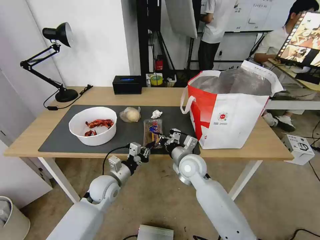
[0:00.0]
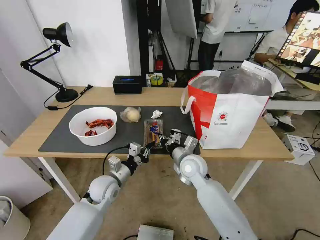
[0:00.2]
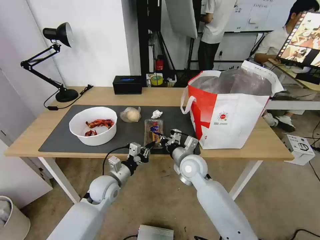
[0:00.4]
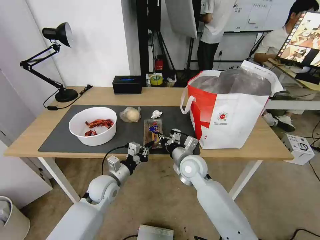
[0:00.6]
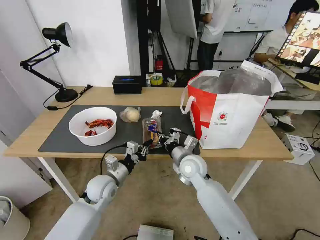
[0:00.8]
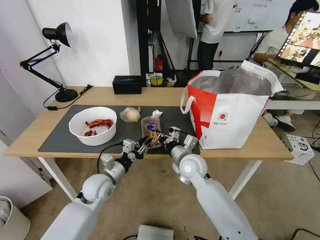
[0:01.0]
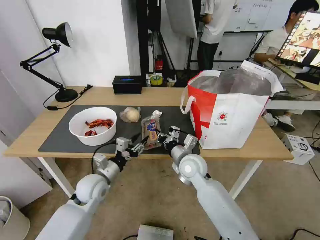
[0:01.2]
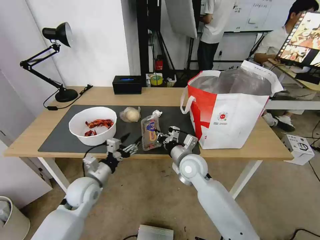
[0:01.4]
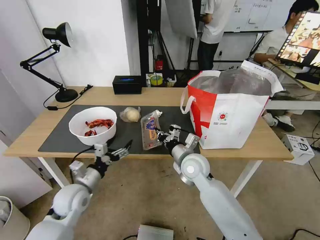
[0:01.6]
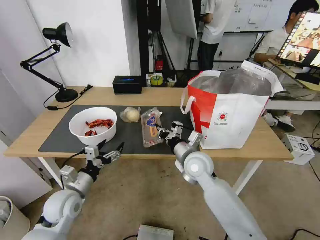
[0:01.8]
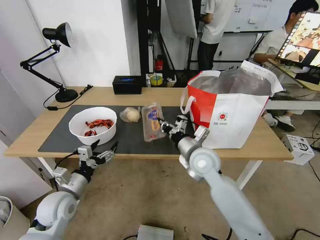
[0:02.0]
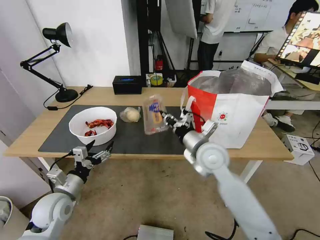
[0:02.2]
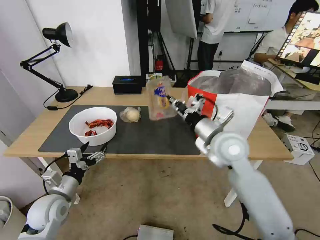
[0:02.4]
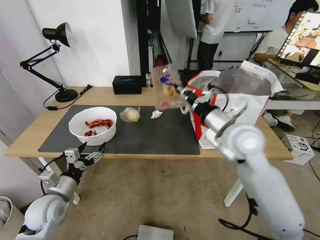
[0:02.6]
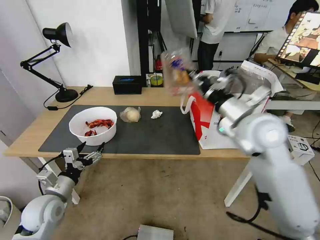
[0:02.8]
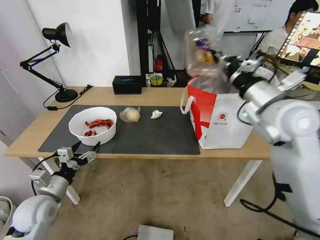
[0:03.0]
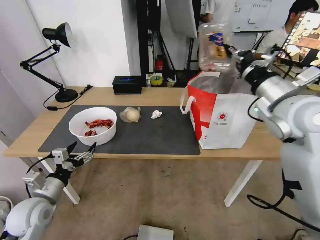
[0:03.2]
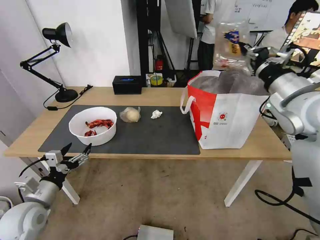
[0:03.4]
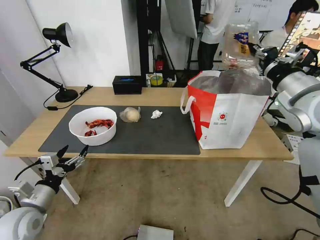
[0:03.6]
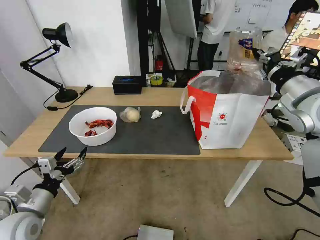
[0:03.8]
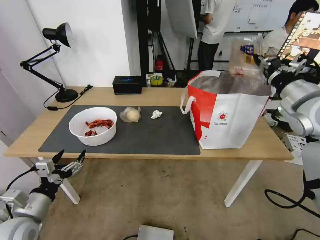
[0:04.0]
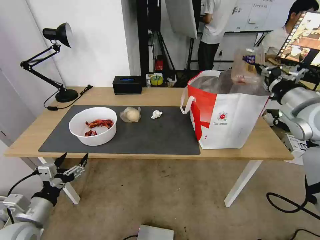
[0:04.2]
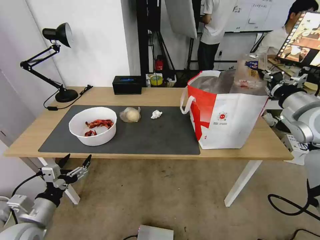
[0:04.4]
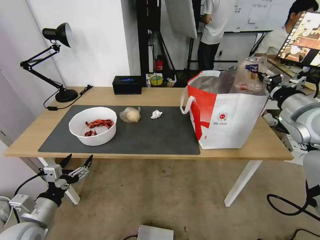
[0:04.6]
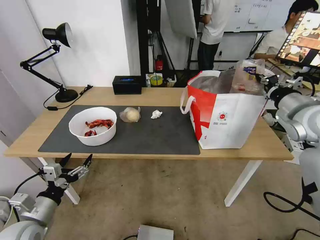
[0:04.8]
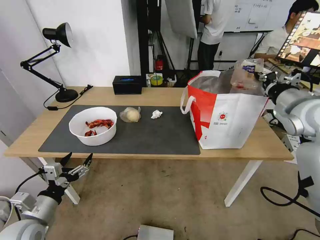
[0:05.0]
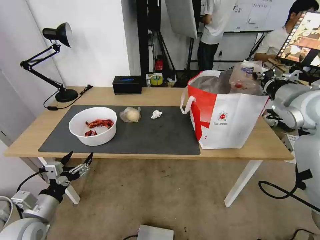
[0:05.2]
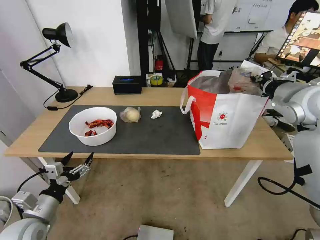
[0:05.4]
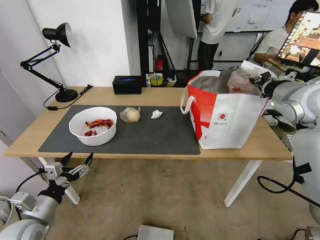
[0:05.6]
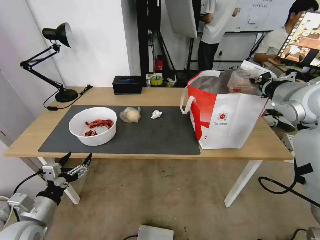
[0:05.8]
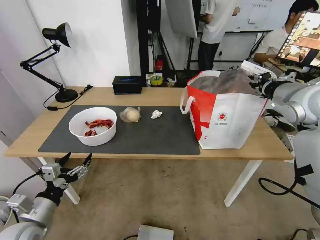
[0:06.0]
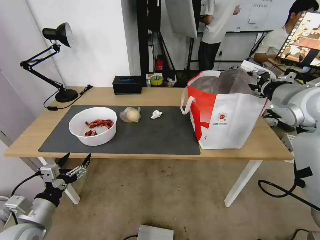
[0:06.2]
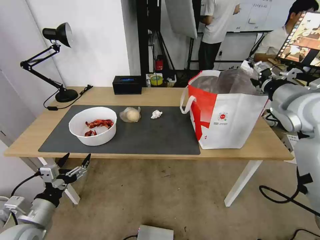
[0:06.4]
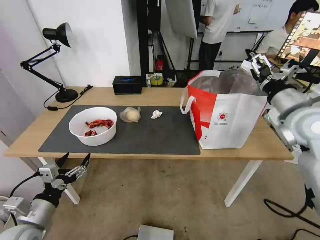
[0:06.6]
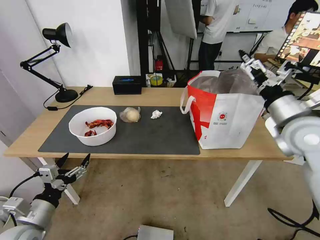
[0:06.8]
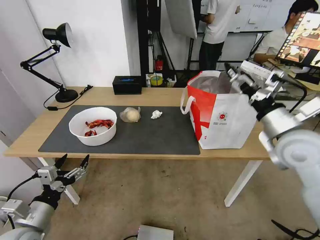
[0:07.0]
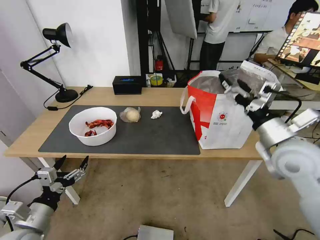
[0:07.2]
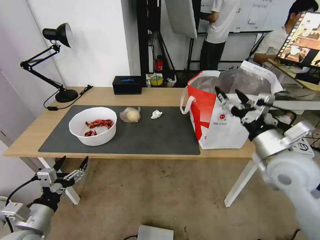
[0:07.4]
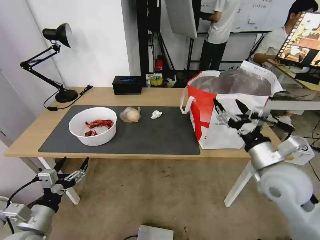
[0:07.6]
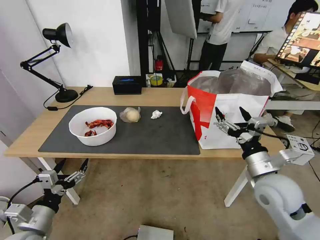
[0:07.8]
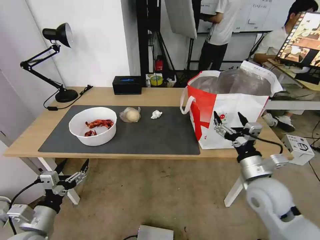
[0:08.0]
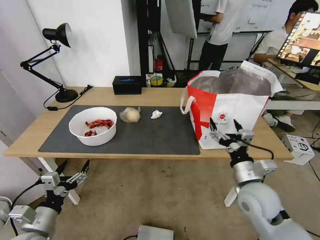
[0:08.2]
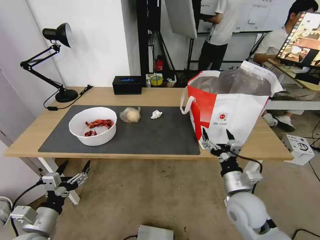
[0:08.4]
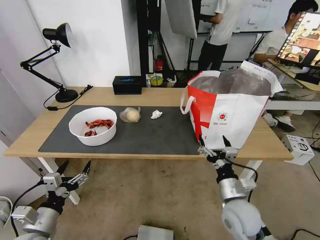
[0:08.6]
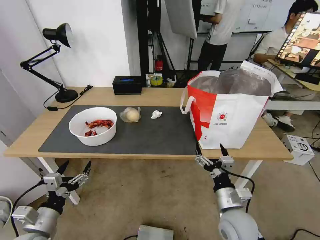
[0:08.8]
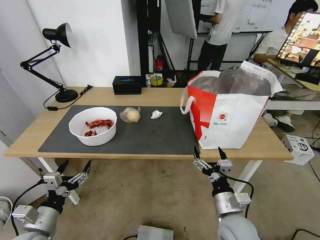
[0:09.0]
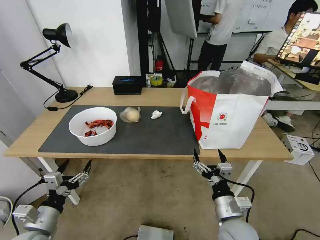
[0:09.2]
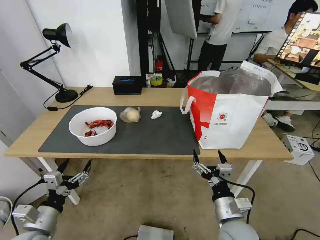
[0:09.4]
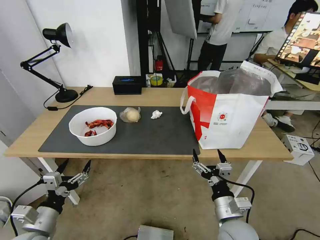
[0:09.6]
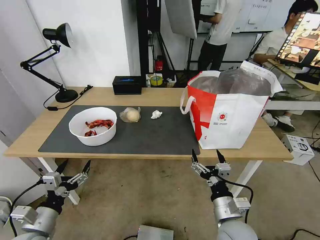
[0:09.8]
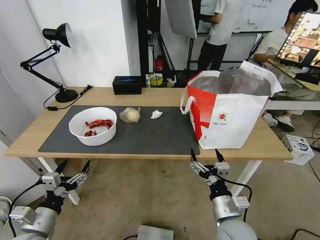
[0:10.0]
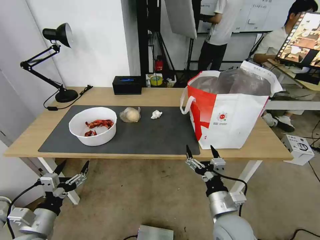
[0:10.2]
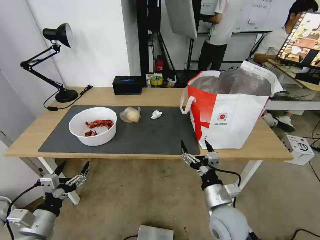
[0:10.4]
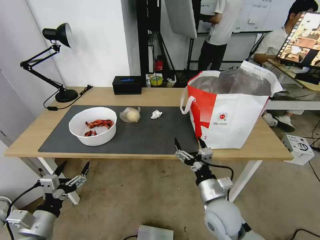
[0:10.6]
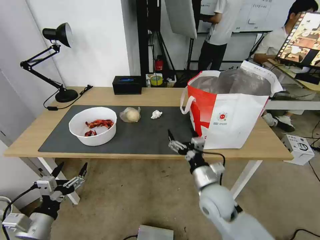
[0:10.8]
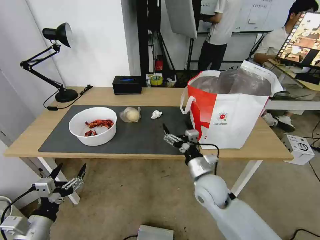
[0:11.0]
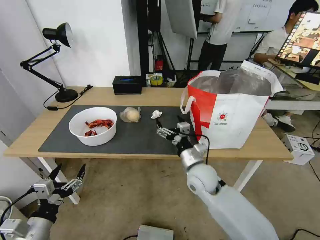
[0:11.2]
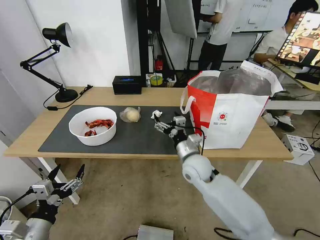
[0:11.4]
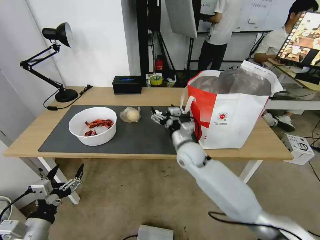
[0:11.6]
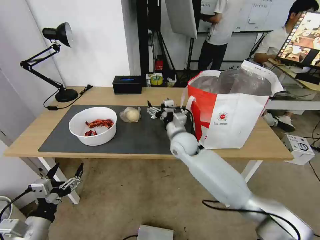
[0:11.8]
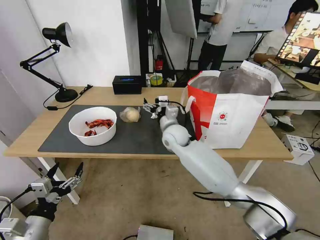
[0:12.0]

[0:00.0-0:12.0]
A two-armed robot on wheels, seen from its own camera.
Task of the whole recording: Pick up the trash from the table and place it into the takeout bag.
0:00.0 to 0:01.6: The left gripper is displaced to the left by some 10 cm, and opens up.
0:01.6 to 0:03.0: The right gripper is displaced upward and to the right by some 30 cm. The left gripper goes about 10 cm to the left.
0:03.0 to 0:04.4: The left gripper is displaced backward by some 5 cm; the right gripper shifts approximately 10 cm to the right.
0:04.4 to 0:06.0: The right gripper moves roughly 5 cm.
0:06.0 to 0:07.6: The right gripper is displaced downward, backward and to the left by roughly 20 cm, and opens.
0:07.6 to 0:09.0: The right gripper heads downward, to the left and backward, covering roughly 20 cm.
0:09.0 to 0:10.4: The grippers stay close to where they were, moving slightly.
0:10.4 to 0:12.0: The right gripper travels forward and to the left by approximately 30 cm.

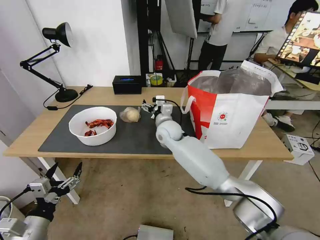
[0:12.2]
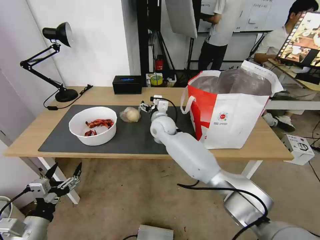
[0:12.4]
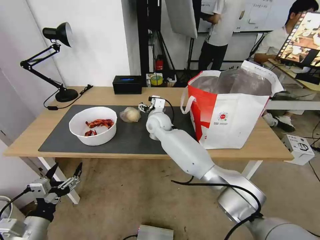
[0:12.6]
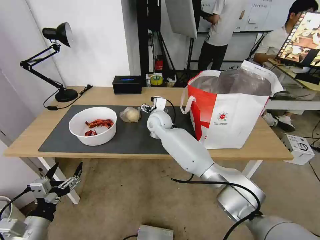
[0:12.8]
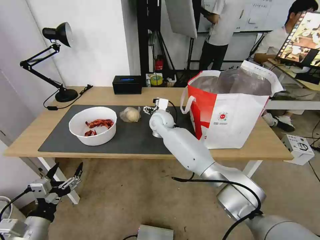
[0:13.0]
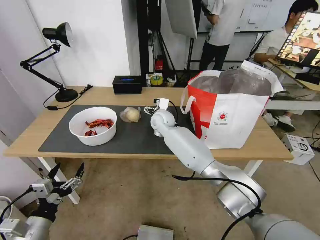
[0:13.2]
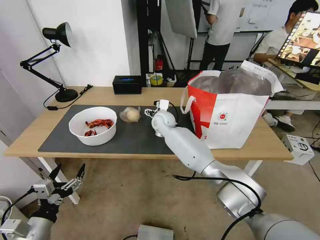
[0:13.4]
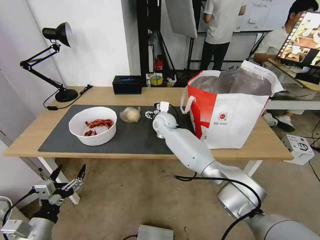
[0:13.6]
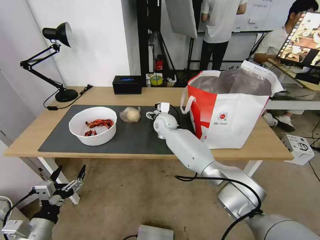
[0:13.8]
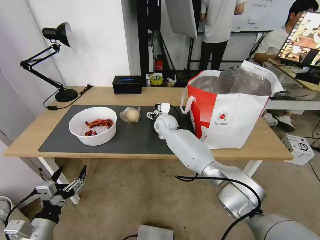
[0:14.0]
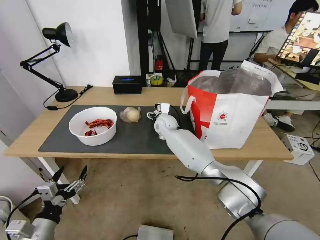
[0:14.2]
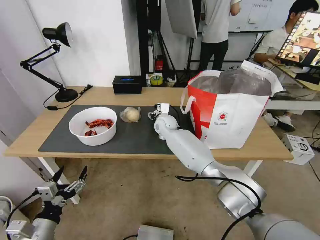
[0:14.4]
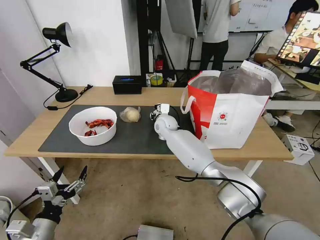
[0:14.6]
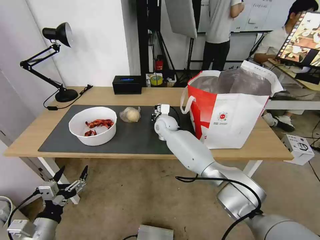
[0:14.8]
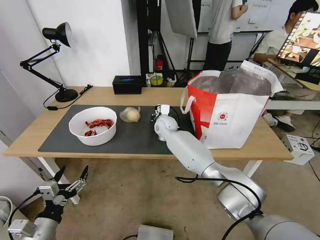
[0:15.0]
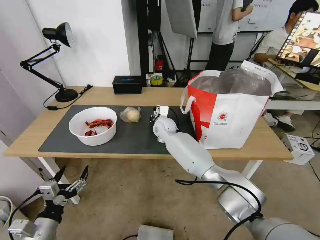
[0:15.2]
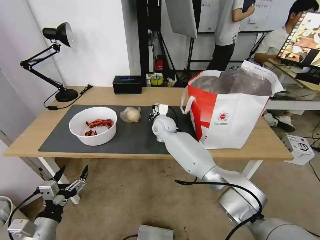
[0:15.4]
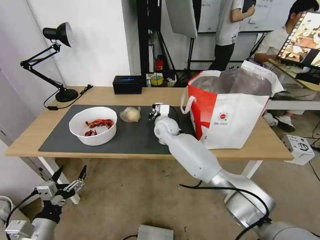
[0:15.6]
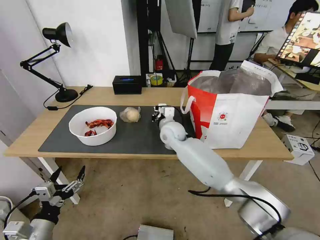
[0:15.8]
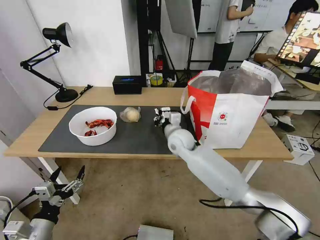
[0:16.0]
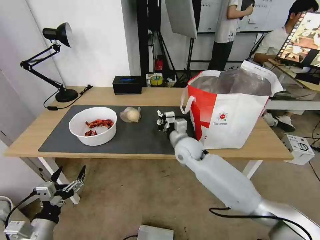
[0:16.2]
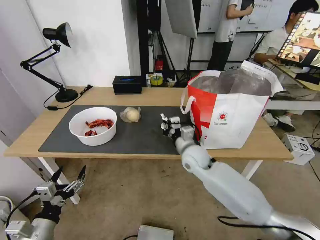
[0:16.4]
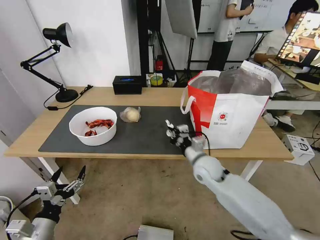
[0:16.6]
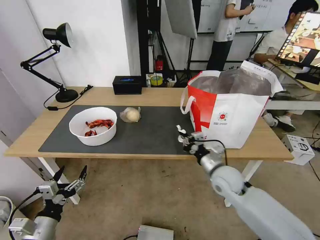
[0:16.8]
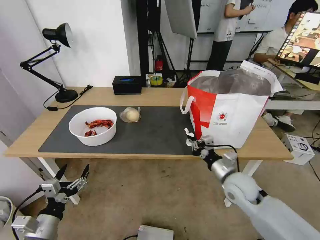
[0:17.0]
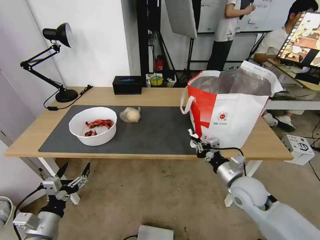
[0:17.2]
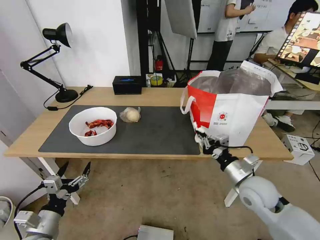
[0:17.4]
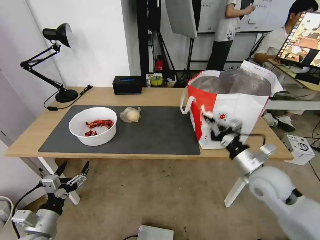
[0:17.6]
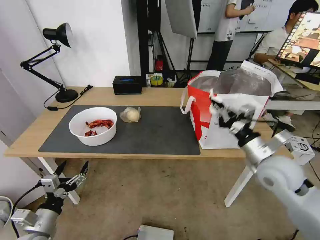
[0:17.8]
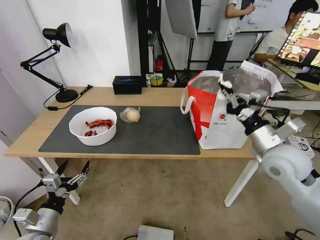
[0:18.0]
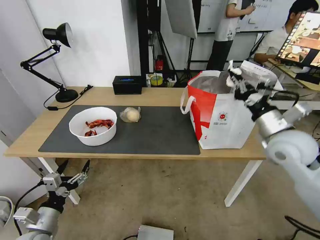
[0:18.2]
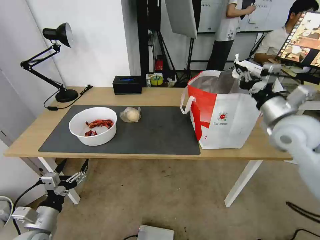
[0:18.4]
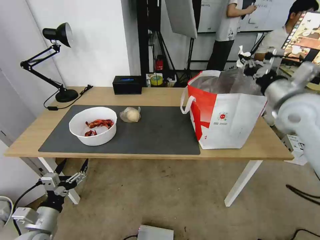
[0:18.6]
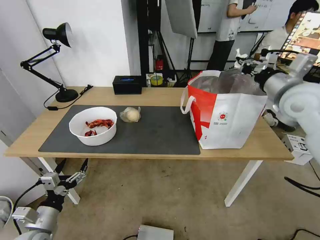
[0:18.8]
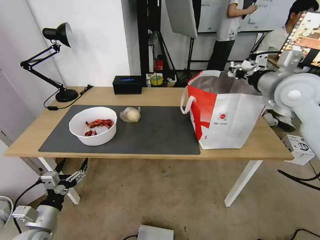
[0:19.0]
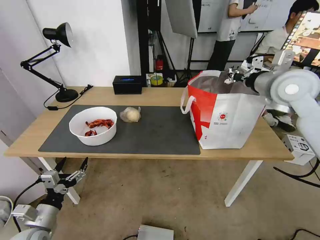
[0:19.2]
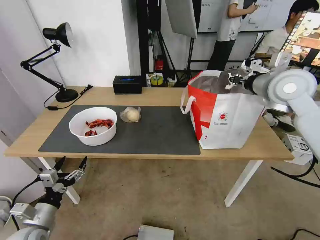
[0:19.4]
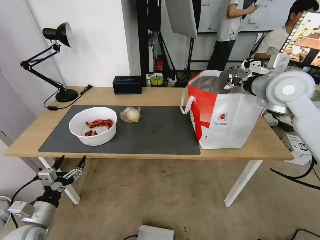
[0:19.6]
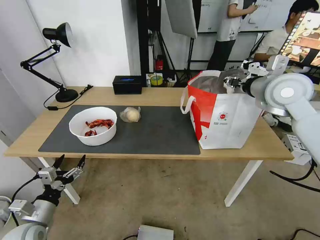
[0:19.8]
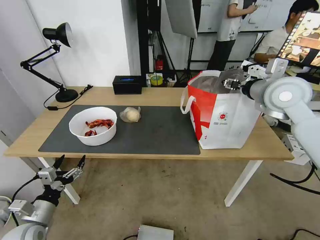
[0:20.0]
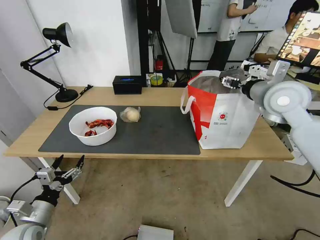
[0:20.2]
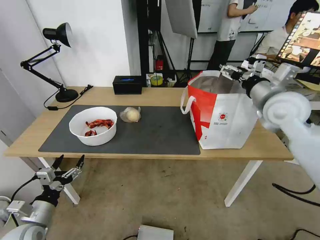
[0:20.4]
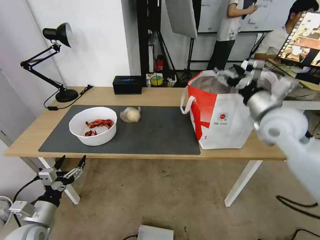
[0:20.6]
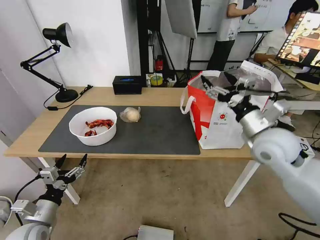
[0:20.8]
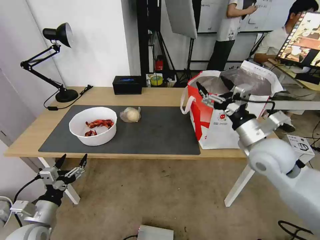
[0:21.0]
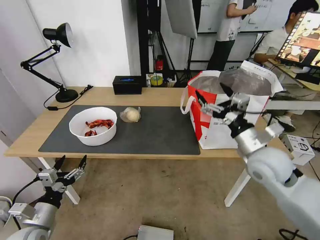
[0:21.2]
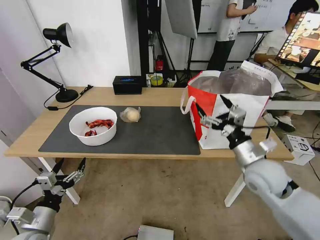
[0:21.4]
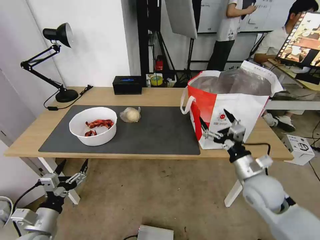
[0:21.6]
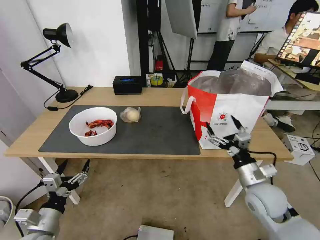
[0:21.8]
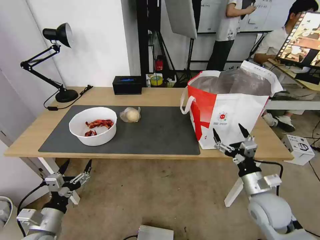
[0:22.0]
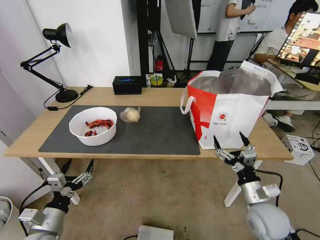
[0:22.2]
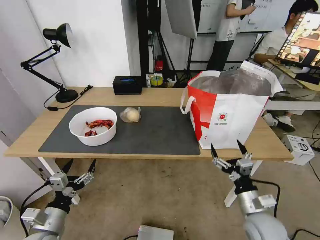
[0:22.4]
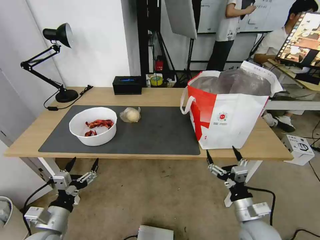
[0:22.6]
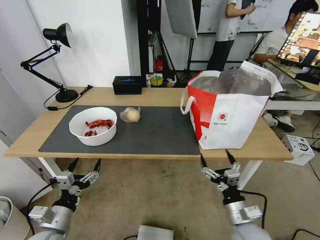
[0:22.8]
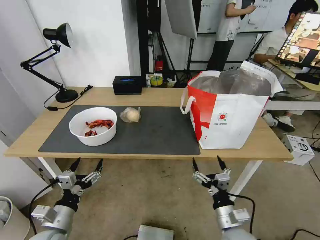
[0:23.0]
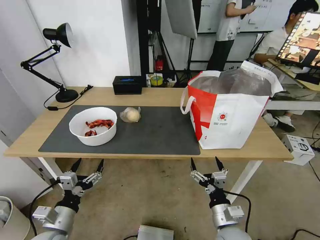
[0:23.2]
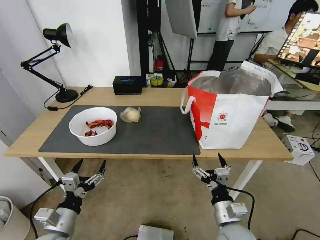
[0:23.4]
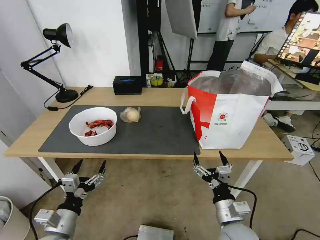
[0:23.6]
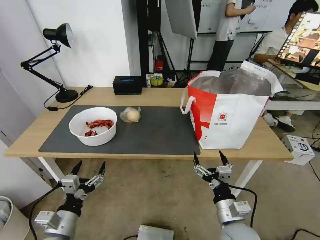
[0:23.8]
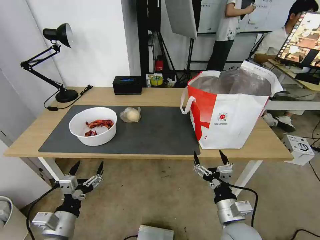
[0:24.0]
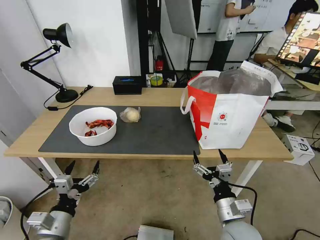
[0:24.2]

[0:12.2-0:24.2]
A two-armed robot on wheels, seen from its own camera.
Task of the whole recording: Pick up the trash from the table and place it into the takeout bag.
0:12.2 to 0:13.8: The right gripper heads forward, covering roughly 5 cm.
0:13.8 to 0:15.2: The right gripper closes its fingers.
0:15.2 to 0:16.6: The right gripper is displaced backward and to the right by some 25 cm.
0:16.6 to 0:18.2: The right gripper heads upward and to the right, covering some 25 cm.
0:18.2 to 0:19.8: The right gripper moves upward and forward, approximately 15 cm.
0:19.8 to 0:21.2: The right gripper is displaced downward and backward by some 20 cm, and opens.
0:21.2 to 0:22.6: The right gripper shifts about 25 cm downward and backward.
0:22.6 to 0:24.2: The right gripper travels to the left by roughly 5 cm.
